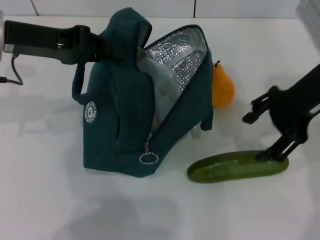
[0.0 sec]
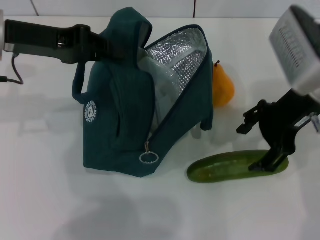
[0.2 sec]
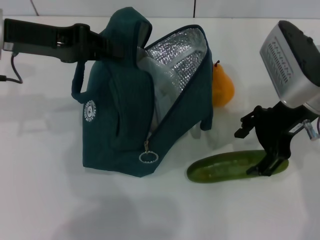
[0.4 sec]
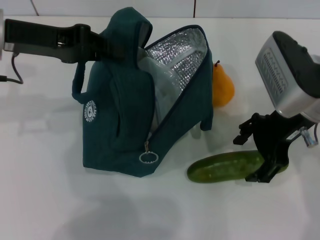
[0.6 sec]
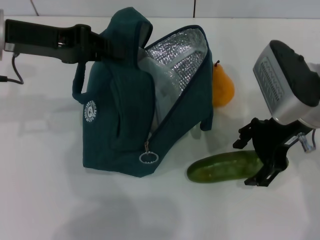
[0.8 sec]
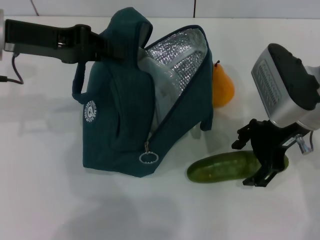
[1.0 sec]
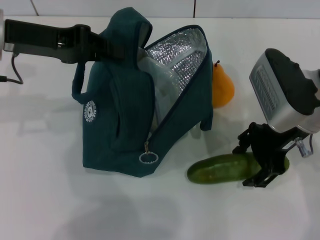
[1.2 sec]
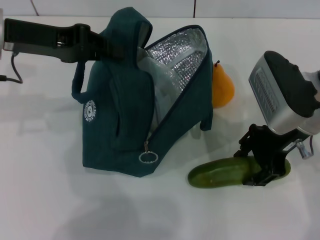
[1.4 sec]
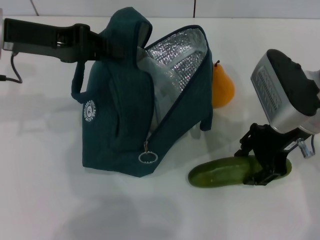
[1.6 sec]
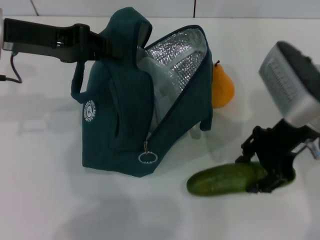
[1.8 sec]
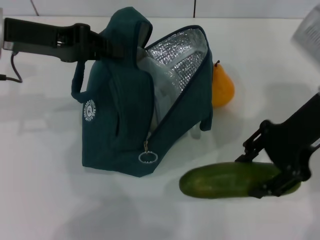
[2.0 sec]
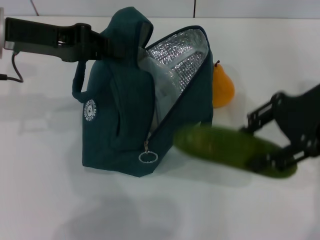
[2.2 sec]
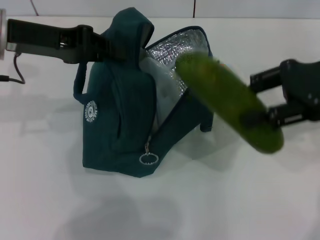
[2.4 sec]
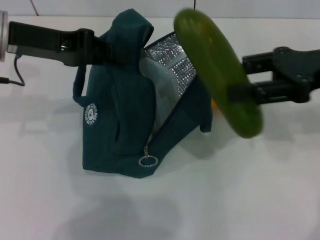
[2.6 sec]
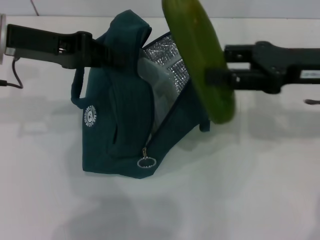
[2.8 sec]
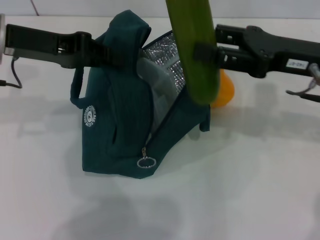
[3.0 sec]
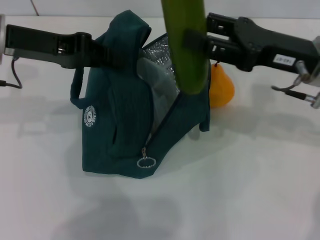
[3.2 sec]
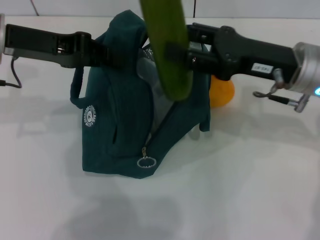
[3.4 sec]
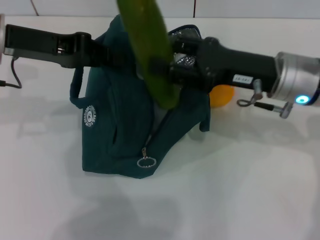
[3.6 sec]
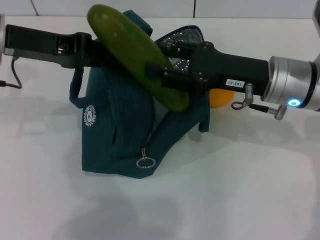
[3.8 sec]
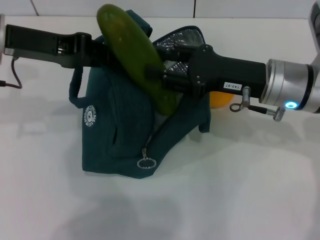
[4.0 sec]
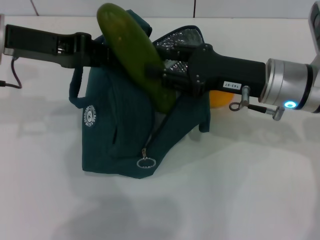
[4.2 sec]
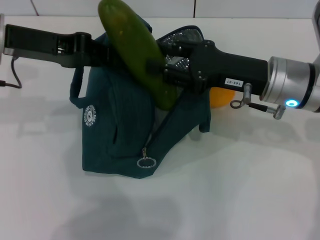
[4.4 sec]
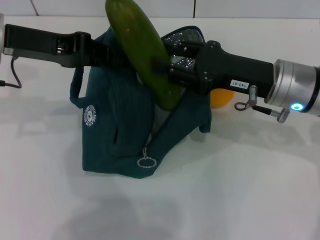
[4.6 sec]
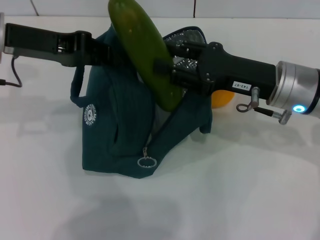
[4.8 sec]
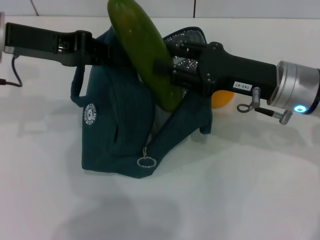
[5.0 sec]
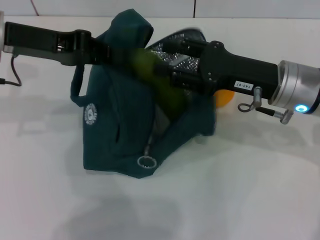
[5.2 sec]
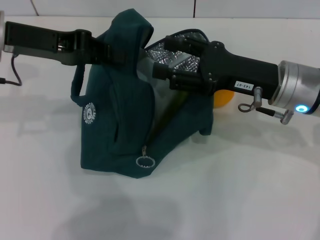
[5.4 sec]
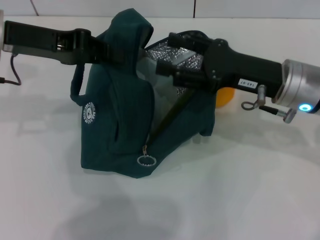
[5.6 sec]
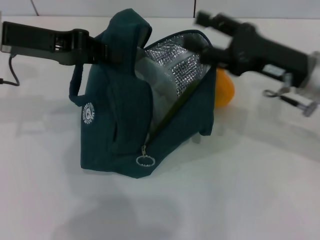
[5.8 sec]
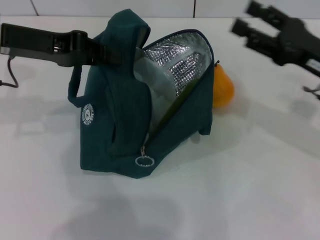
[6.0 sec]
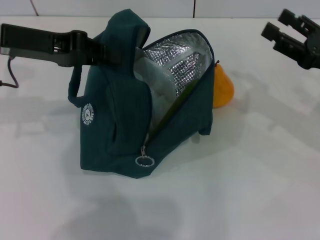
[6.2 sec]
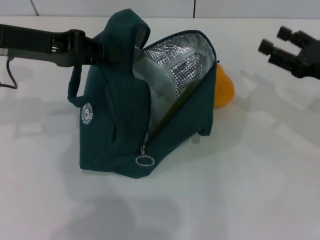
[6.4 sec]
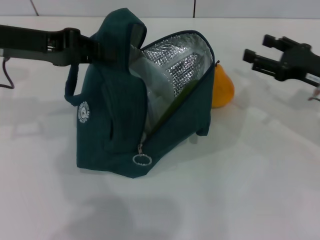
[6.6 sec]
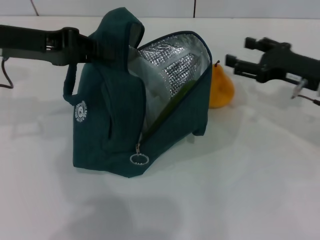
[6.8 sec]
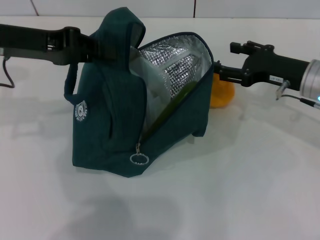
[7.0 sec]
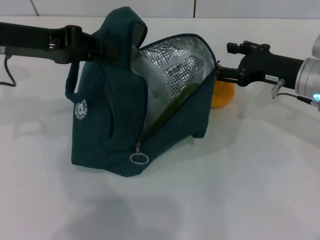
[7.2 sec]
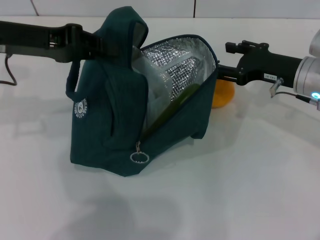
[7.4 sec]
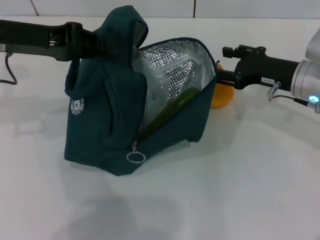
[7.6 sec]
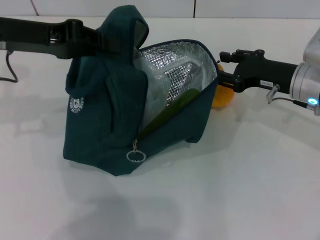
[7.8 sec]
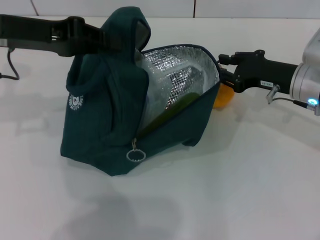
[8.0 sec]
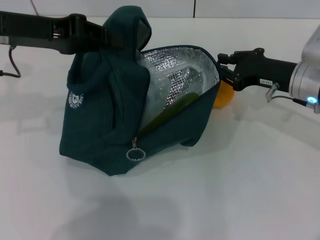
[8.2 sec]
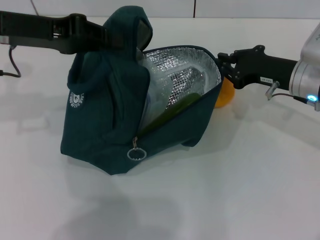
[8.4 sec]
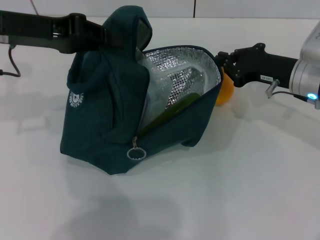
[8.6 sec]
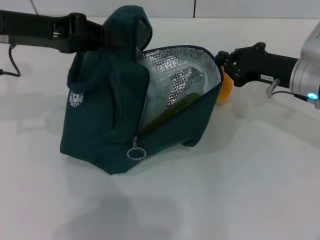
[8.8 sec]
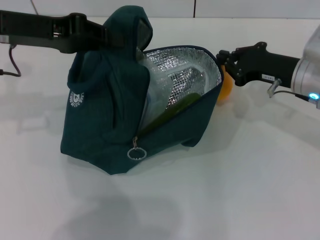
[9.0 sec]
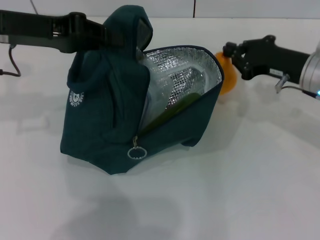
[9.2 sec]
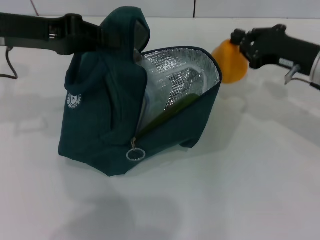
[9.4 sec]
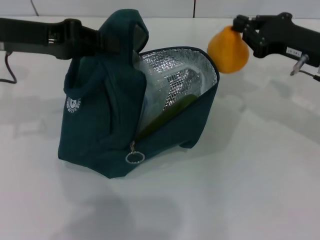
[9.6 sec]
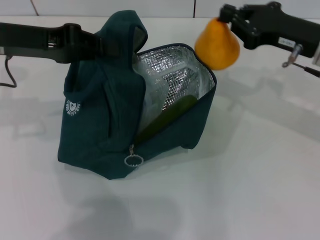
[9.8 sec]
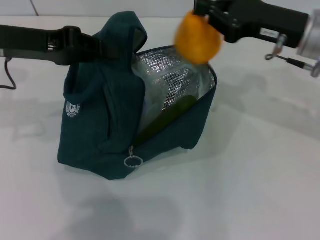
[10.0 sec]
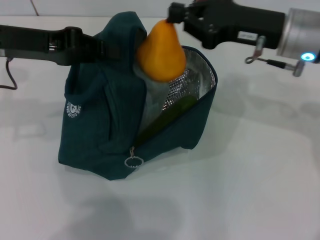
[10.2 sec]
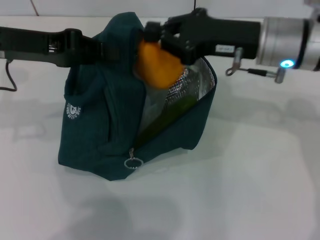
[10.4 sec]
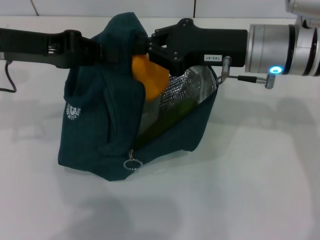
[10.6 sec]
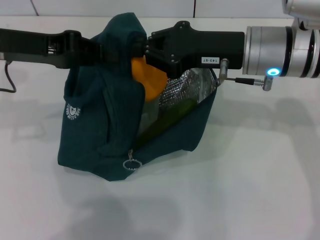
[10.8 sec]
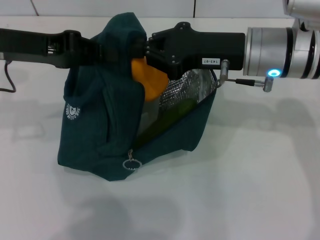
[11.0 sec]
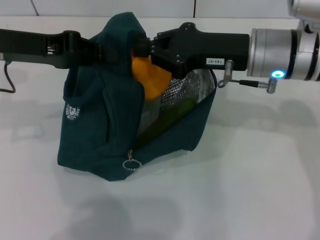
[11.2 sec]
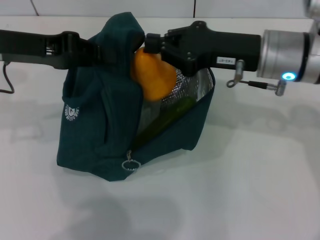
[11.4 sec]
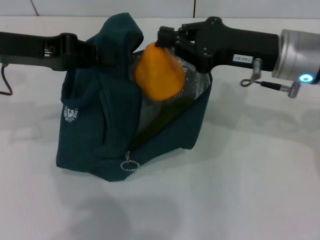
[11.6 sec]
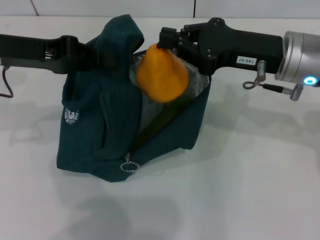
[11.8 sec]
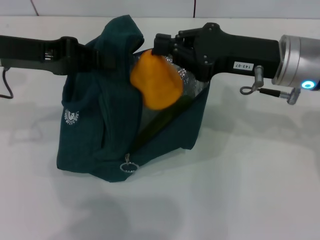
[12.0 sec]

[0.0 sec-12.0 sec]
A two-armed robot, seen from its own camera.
Step, 1.4 sec to 5.4 sec: Put the cucumber into the lunch bag with your right hand.
Step, 5.6 sec to 8.8 sec: Grab the pear with your right hand.
0.0 sec to 1.6 sec: The right gripper shifts some 5 cm downward.
3.0 sec to 4.4 sec: The right gripper heads to the left, covering some 5 cm.
4.4 sec to 6.0 sec: The right gripper moves to the right, roughly 10 cm, and opens.
6.0 sec to 7.6 sec: The right gripper moves forward, approximately 5 cm.
7.6 sec to 9.0 sec: The right gripper closes.
9.0 sec to 10.4 sec: The right gripper is displaced upward and to the left by approximately 10 cm.
10.4 sec to 12.0 sec: The grippers move only a little.

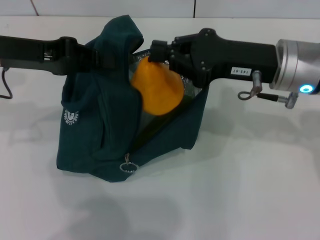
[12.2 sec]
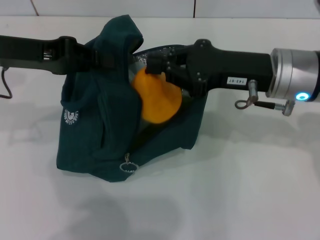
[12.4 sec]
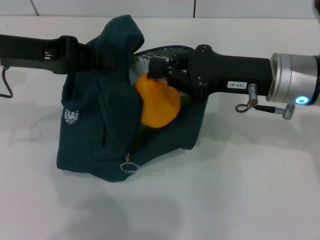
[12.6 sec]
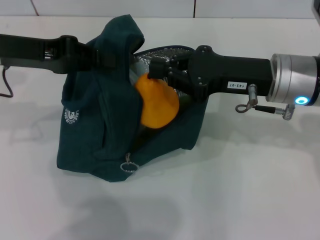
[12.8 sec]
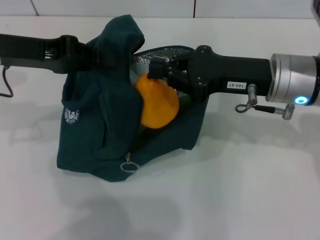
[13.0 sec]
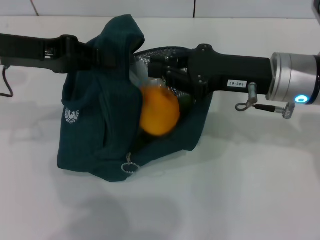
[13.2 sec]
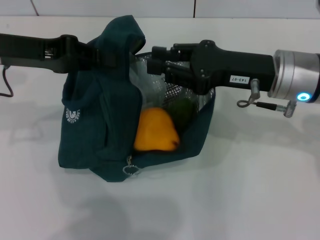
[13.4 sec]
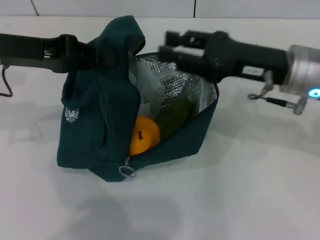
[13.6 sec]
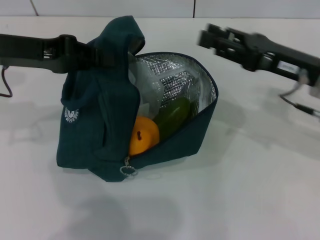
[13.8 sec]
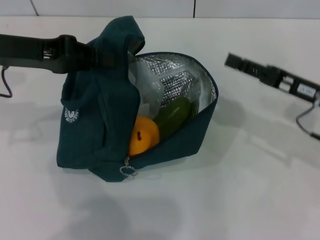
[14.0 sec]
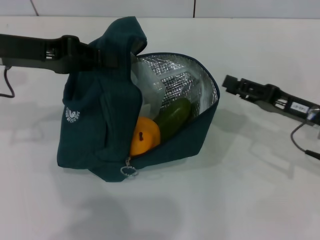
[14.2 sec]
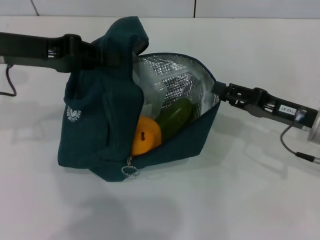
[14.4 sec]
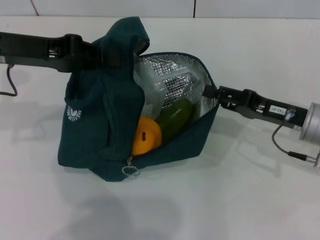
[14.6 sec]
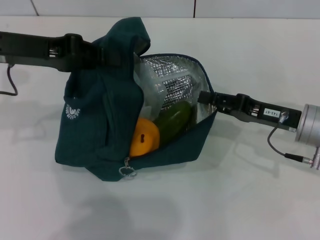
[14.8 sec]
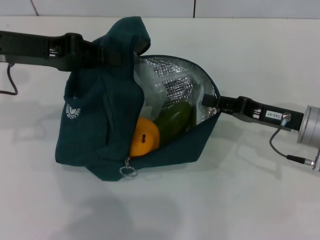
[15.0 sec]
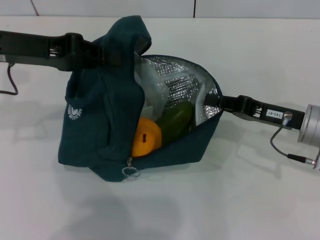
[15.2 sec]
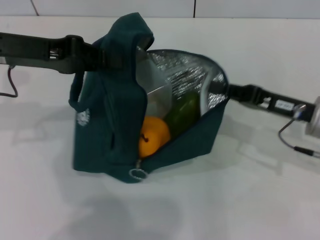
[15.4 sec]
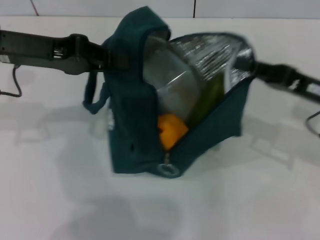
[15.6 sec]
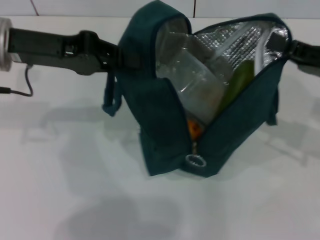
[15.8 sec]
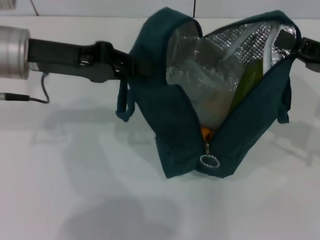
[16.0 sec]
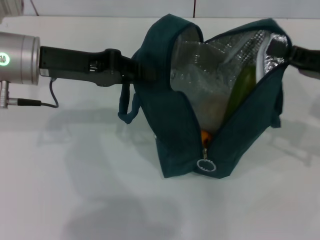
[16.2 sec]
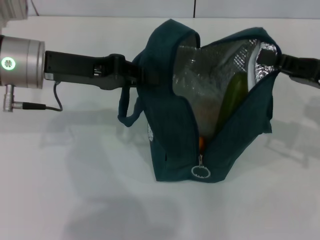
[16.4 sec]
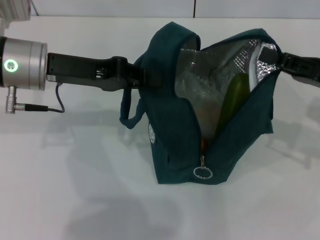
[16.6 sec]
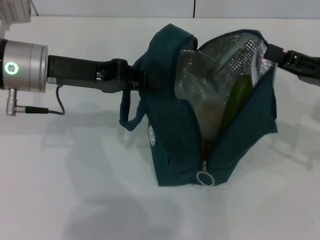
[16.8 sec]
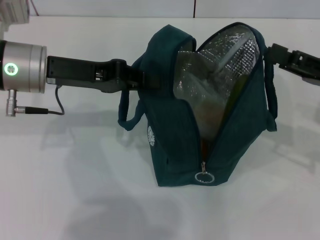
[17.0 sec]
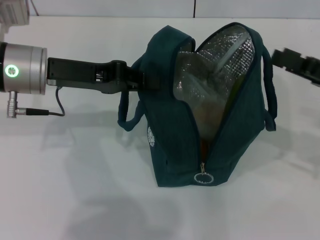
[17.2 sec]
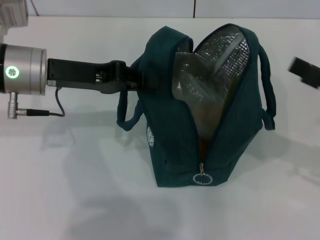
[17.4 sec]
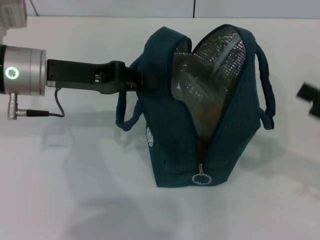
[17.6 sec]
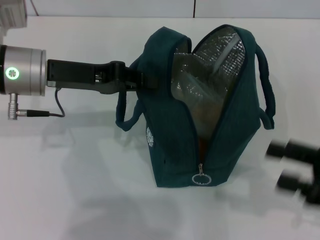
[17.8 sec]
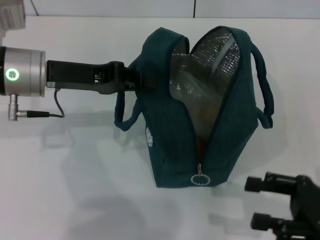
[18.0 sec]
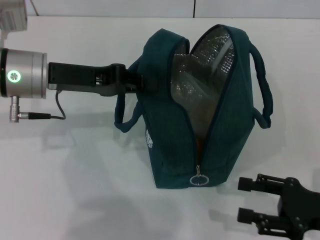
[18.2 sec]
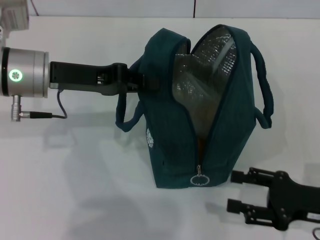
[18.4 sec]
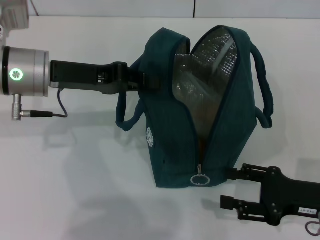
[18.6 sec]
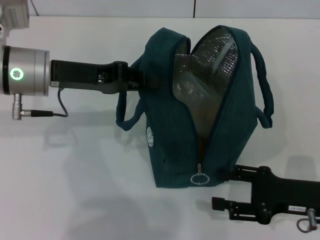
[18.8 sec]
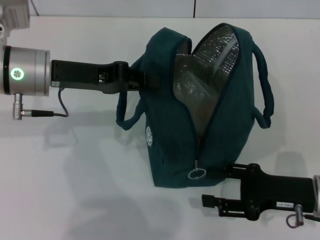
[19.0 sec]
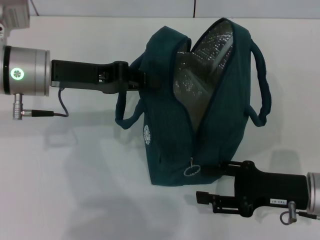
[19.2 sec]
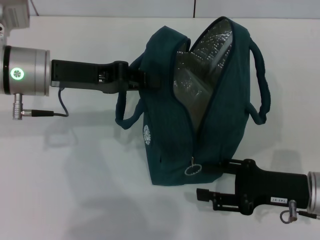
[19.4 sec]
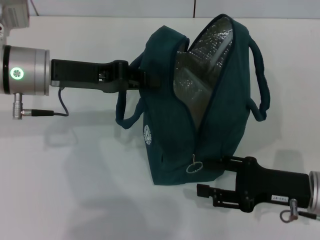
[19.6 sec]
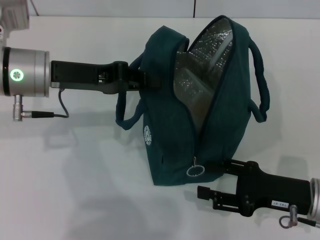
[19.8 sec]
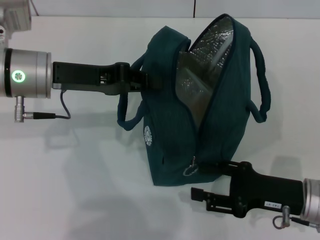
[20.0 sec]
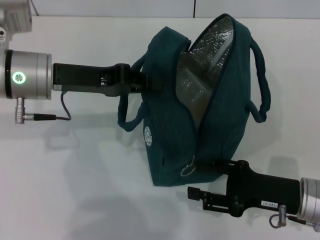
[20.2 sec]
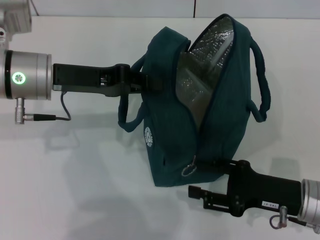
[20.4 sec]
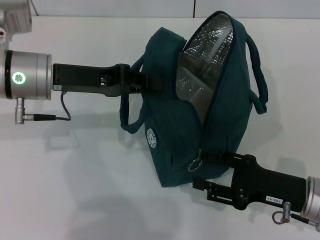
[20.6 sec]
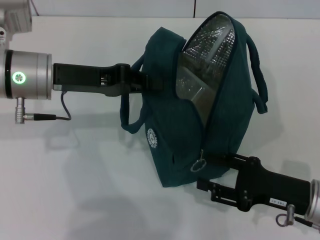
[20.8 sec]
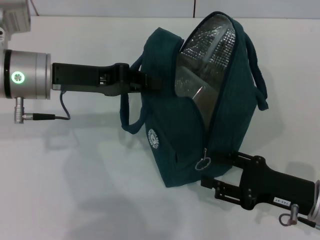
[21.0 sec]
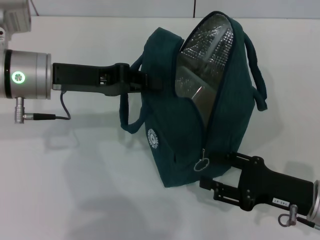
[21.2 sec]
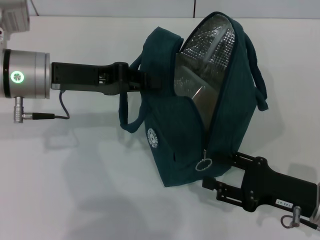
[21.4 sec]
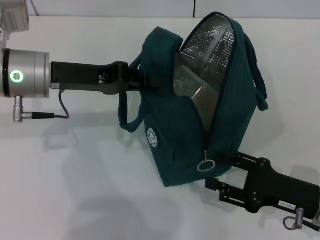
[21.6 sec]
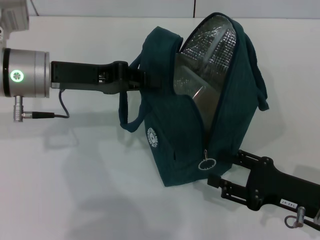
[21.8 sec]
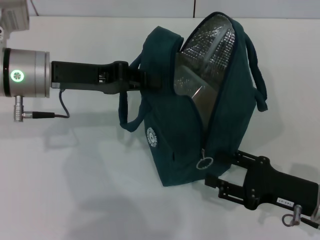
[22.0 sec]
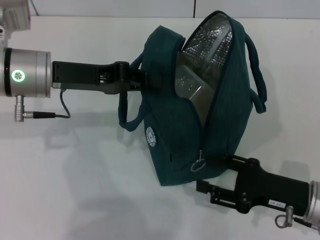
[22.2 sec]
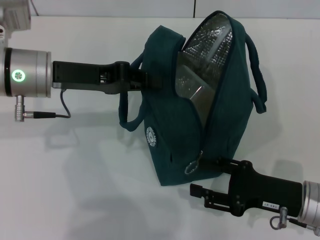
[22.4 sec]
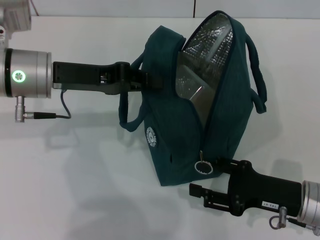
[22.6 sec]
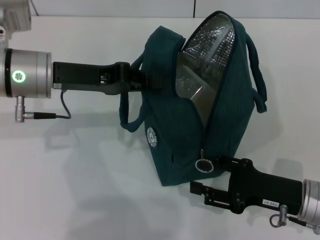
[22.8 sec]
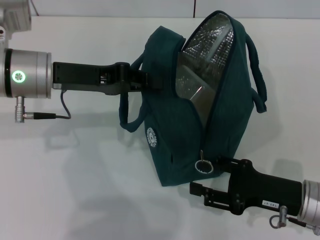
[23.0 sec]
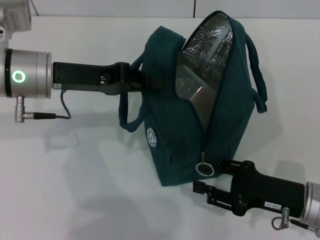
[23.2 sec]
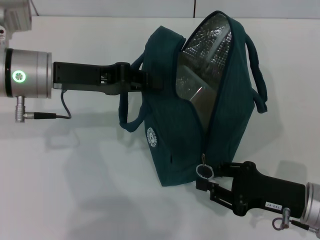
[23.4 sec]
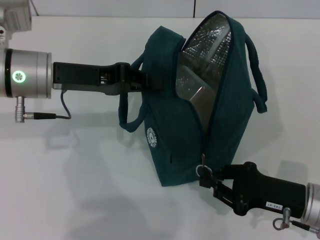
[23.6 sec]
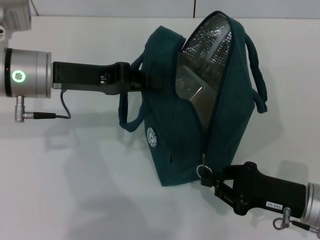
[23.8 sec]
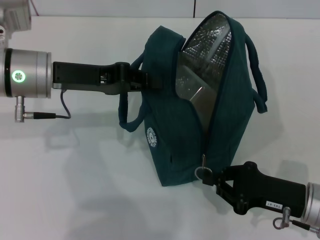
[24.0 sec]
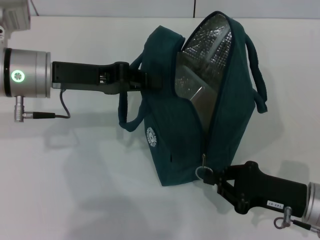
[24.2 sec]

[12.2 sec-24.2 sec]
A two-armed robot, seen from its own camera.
Step, 13.6 sec to 17.0 sec: Hold the lunch bag with your right hand.
12.2 sec to 13.8 sec: The right gripper moves to the right, approximately 5 cm, and opens.
13.8 sec to 15.2 sec: The right gripper heads downward, covering some 5 cm.
15.2 sec to 16.6 sec: The right gripper moves to the right and upward, approximately 10 cm, while the left gripper ends up about 5 cm from where it was.
16.6 sec to 18.2 sec: The right gripper moves backward and downward, roughly 15 cm, and opens.
18.2 sec to 19.8 sec: The right gripper travels to the left by some 5 cm.
19.8 sec to 21.2 sec: There are only small adjustments of the grippers.
21.2 sec to 22.6 sec: Both grippers stay put.
22.6 sec to 24.2 sec: The right gripper closes its fingers.
